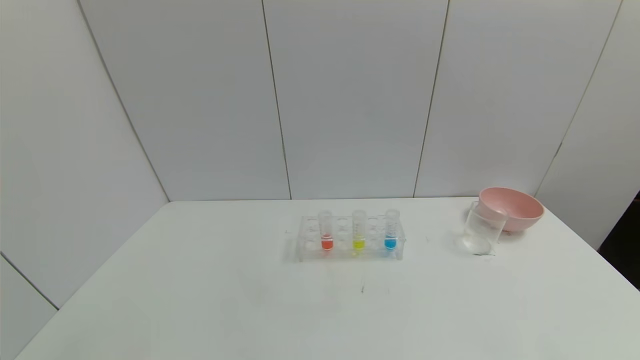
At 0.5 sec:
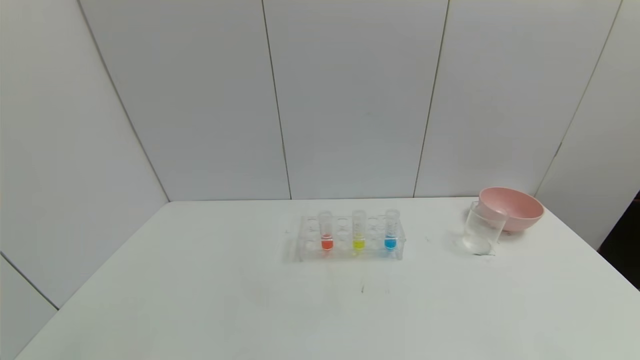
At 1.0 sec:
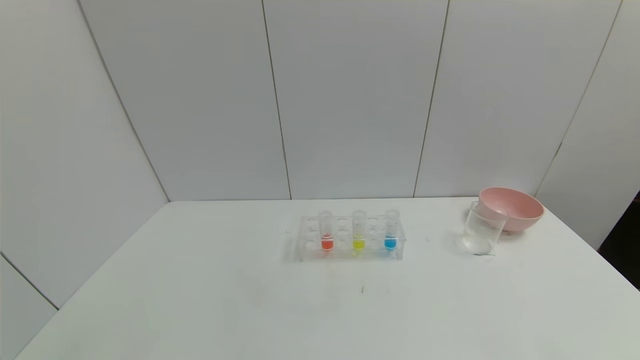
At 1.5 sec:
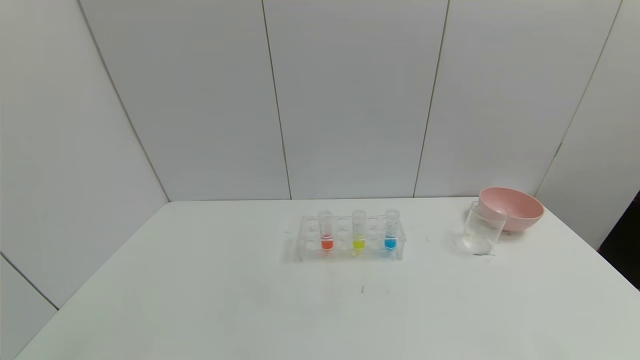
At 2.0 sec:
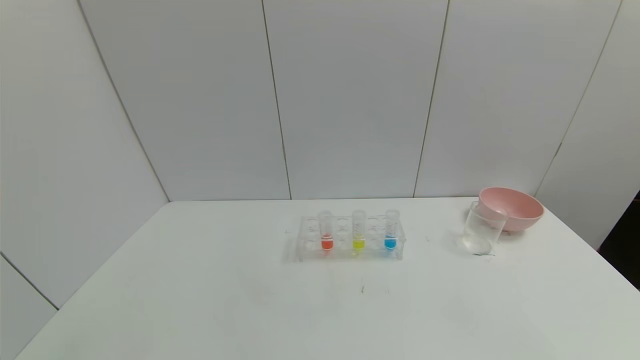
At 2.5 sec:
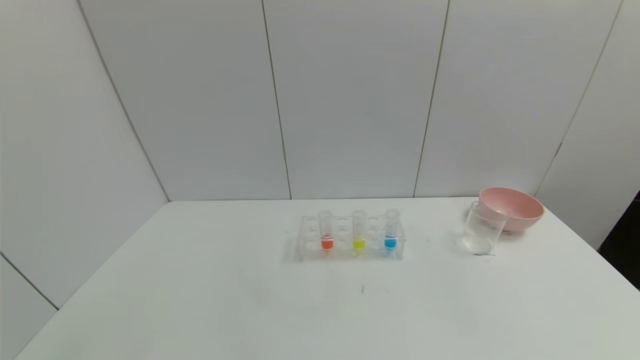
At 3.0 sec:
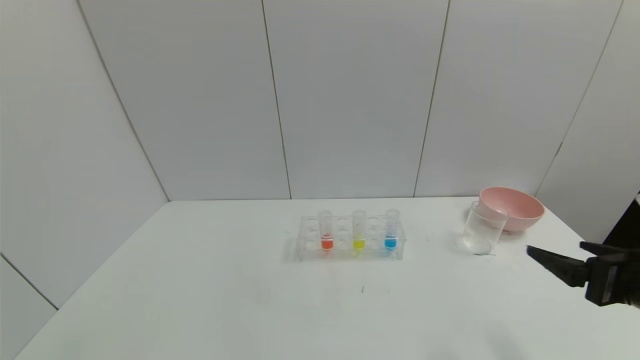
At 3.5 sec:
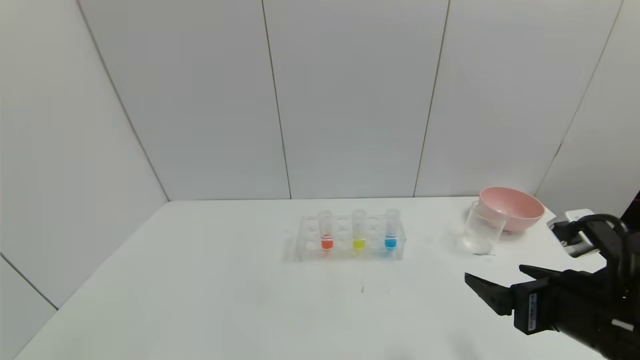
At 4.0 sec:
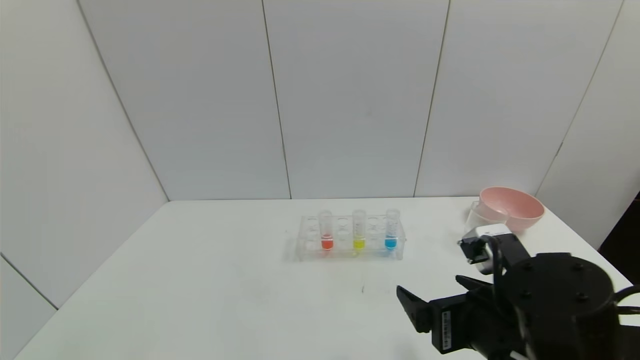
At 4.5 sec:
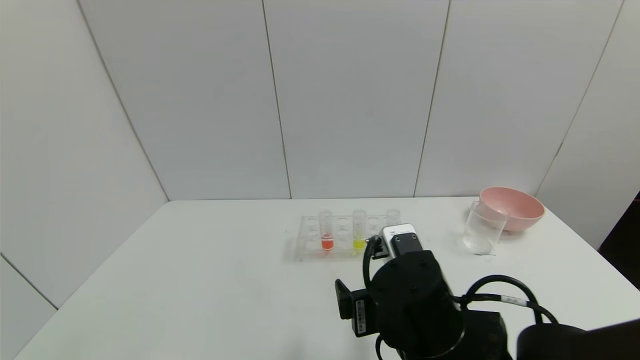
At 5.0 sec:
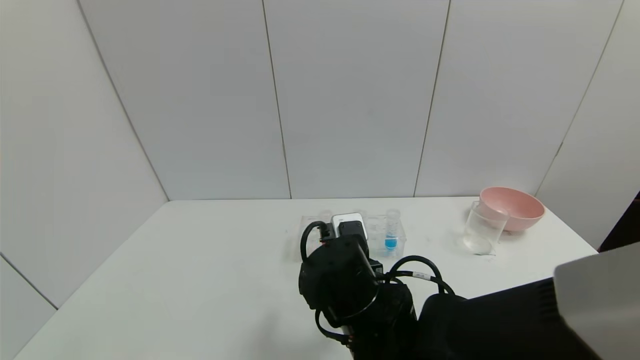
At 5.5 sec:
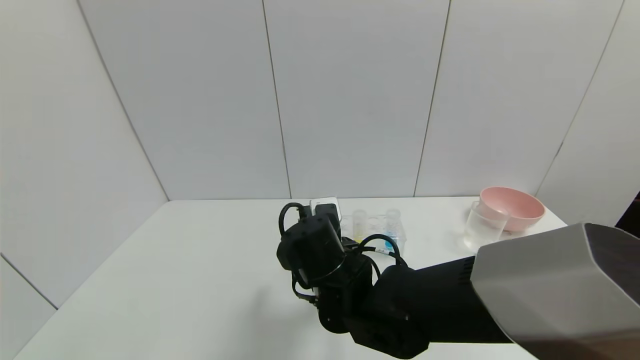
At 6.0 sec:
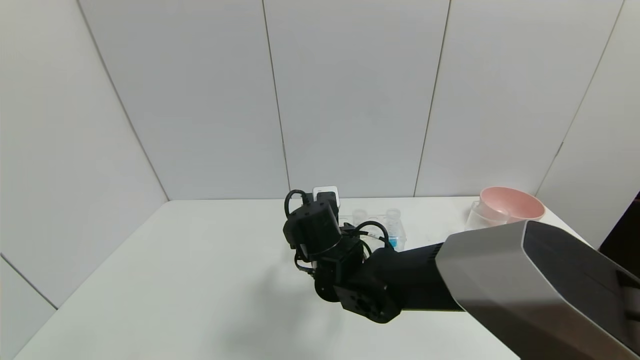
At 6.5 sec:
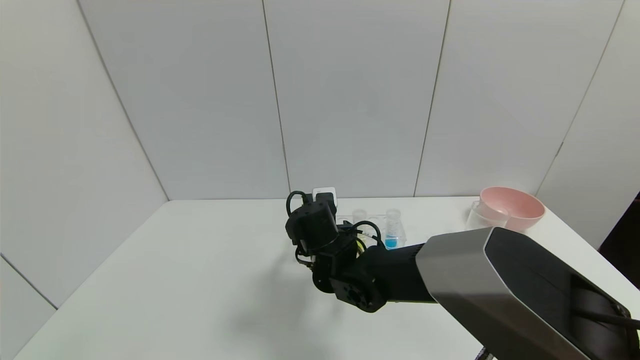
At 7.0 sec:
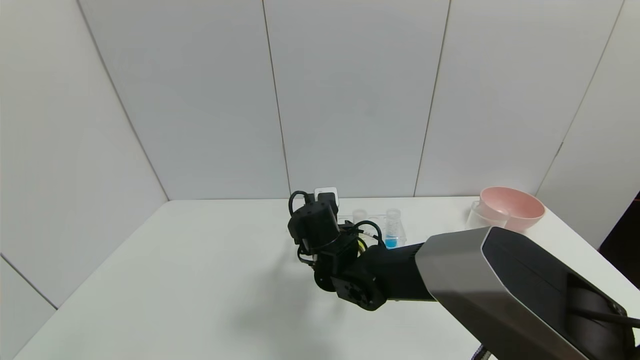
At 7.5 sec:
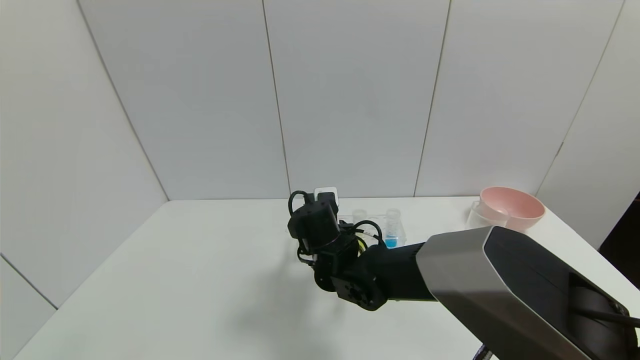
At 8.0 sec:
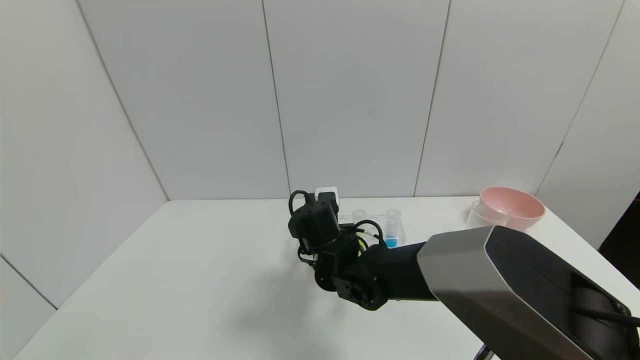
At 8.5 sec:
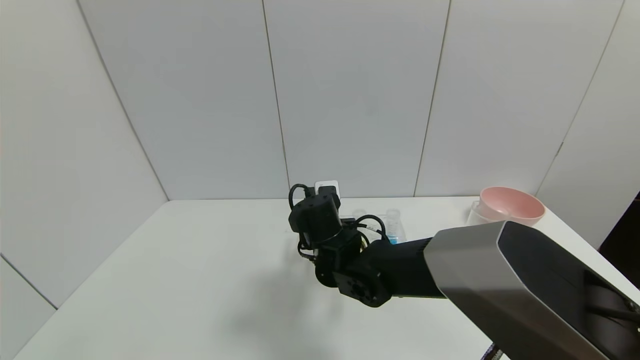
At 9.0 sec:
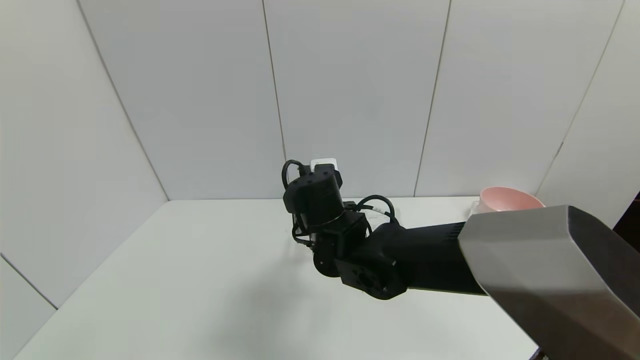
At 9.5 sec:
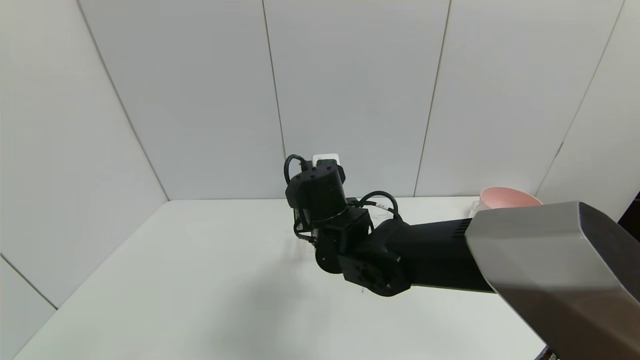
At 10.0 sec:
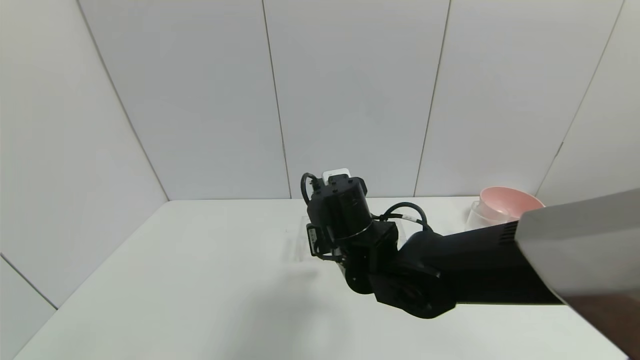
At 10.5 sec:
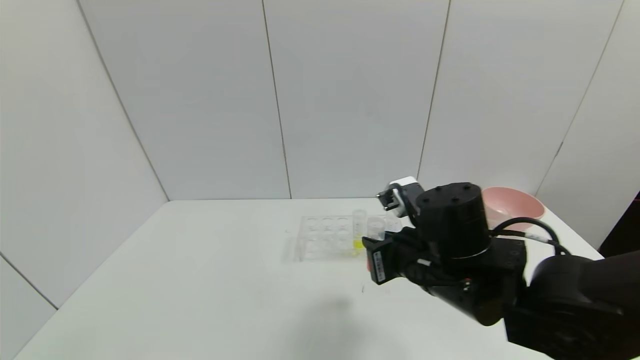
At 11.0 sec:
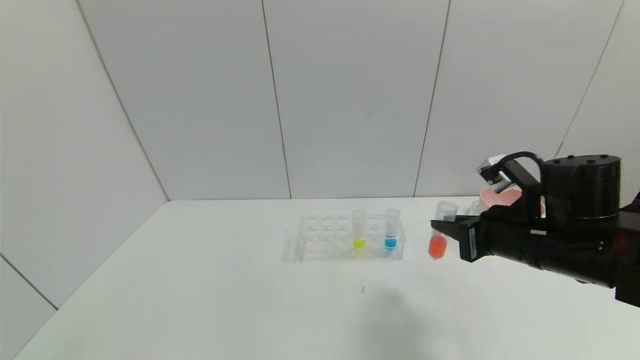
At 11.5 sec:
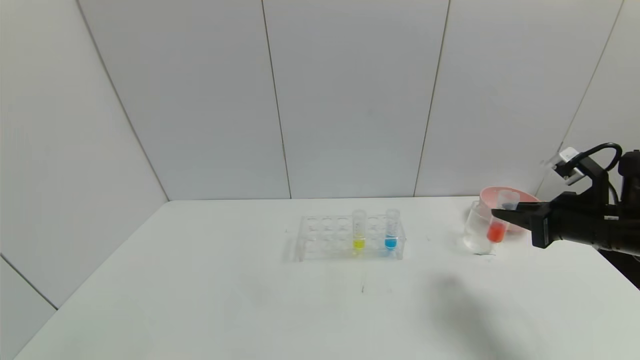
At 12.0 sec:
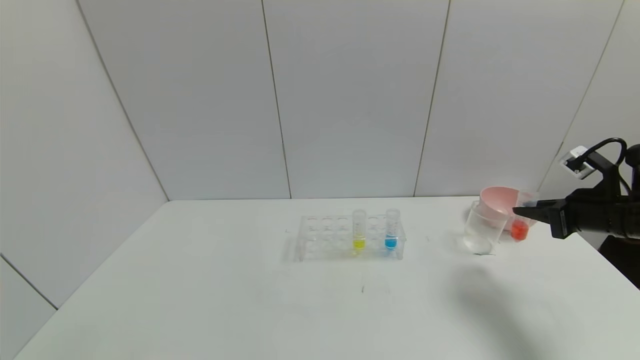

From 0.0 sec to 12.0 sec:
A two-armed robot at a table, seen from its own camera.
Task of the whole recording: pick up the test tube with yellow pigment and the test tube with red pigment by grippers and pour them into the beaker.
Step, from 0.0 sec to 11.0 sec: Pick up the test tube containing the red reagent with right gripper.
From 2.0 sec to 4.0 sec: The right gripper shifts about 25 cm to the left and forward.
From 4.0 sec to 6.0 sec: The right gripper goes some 25 cm to the left and forward.
From 6.0 sec to 8.0 sec: The right gripper closes up.
From 8.0 sec to 10.0 sec: The right gripper travels upward and backward by roughly 10 cm.
From 10.0 sec to 12.0 sec: The right gripper is displaced to the right by roughly 40 cm.

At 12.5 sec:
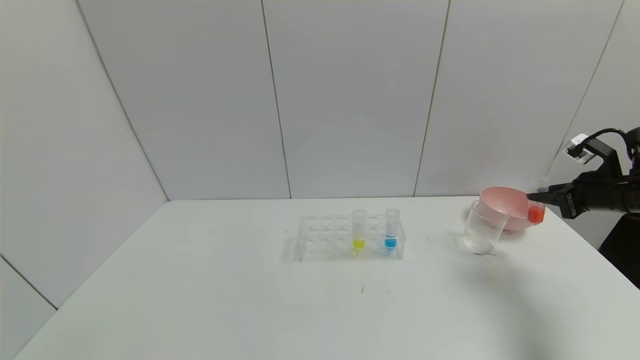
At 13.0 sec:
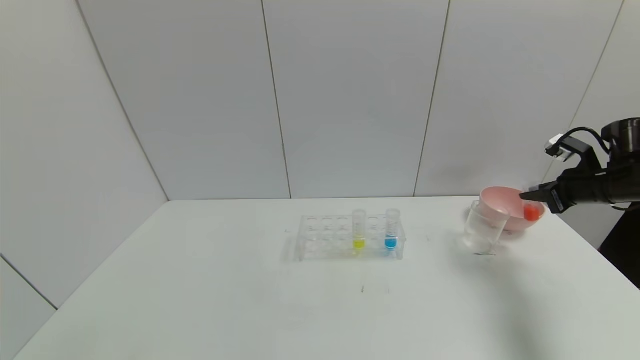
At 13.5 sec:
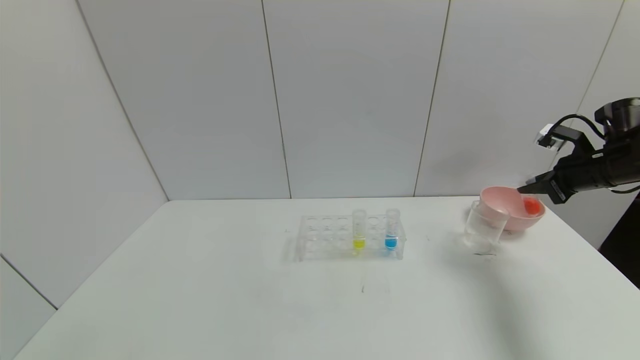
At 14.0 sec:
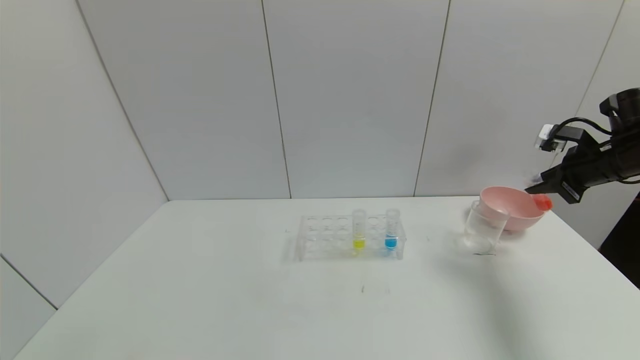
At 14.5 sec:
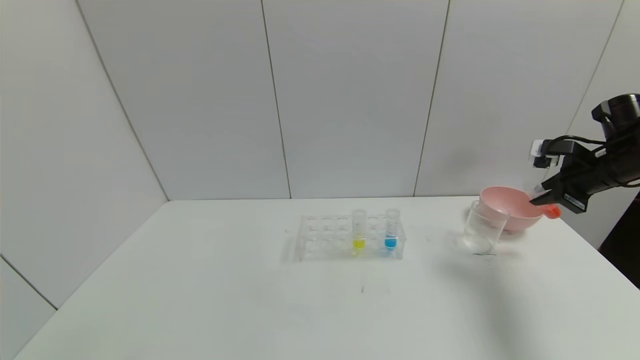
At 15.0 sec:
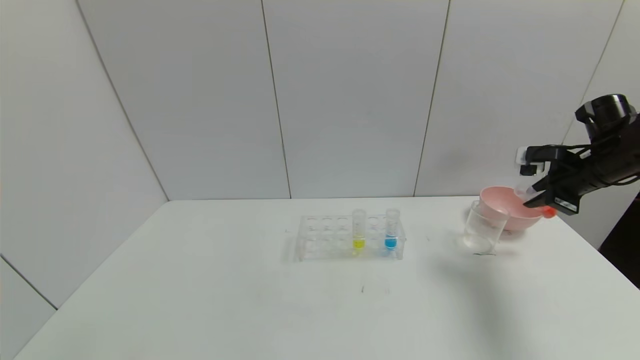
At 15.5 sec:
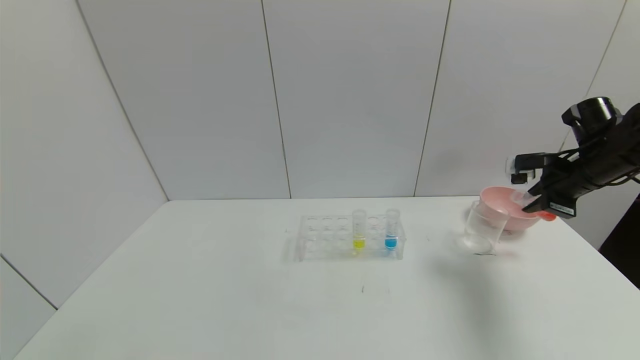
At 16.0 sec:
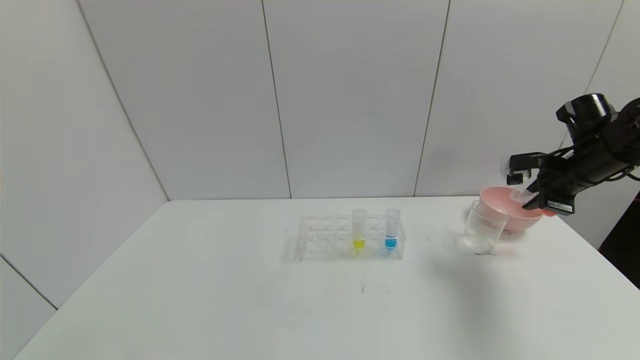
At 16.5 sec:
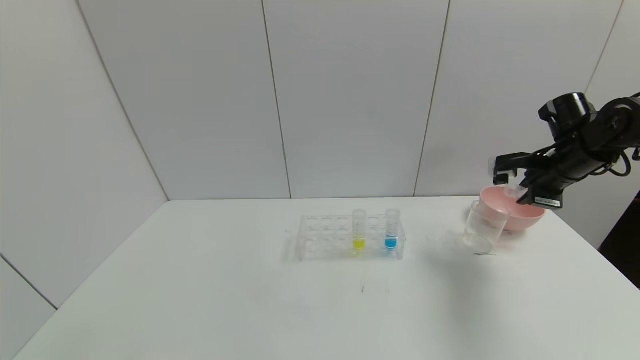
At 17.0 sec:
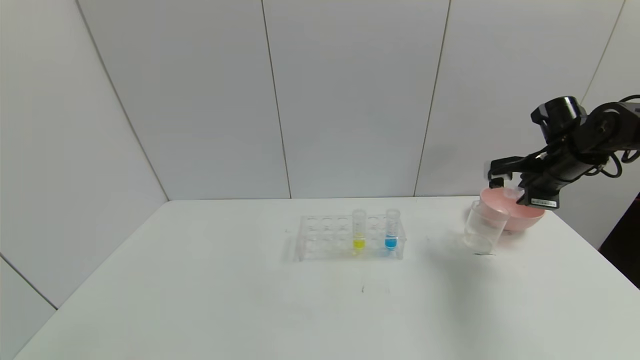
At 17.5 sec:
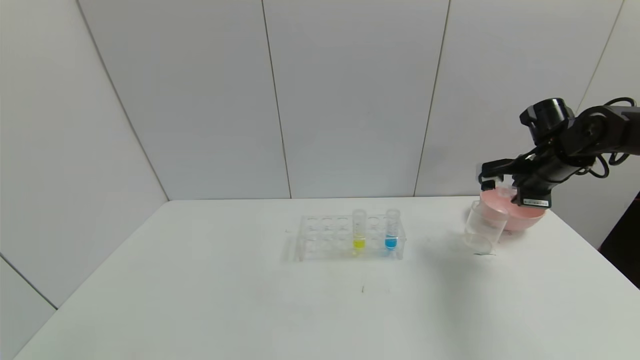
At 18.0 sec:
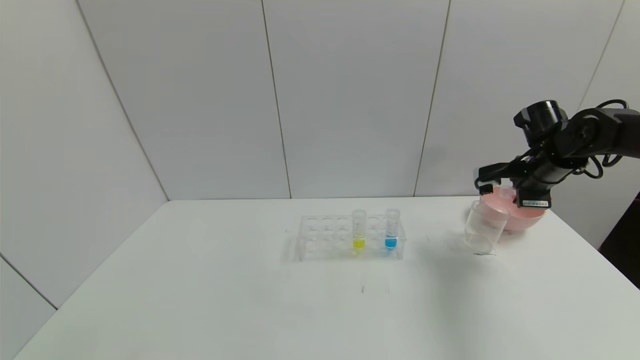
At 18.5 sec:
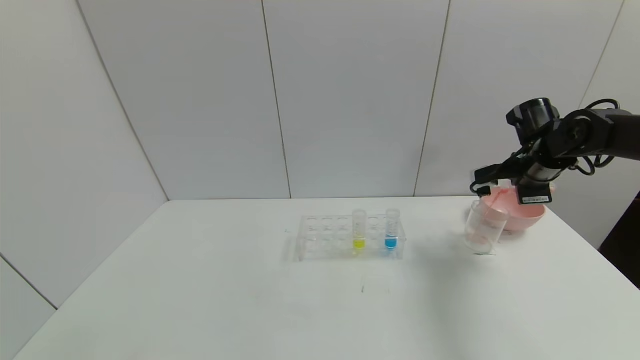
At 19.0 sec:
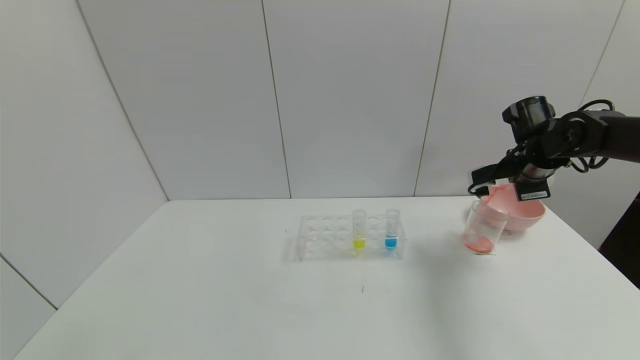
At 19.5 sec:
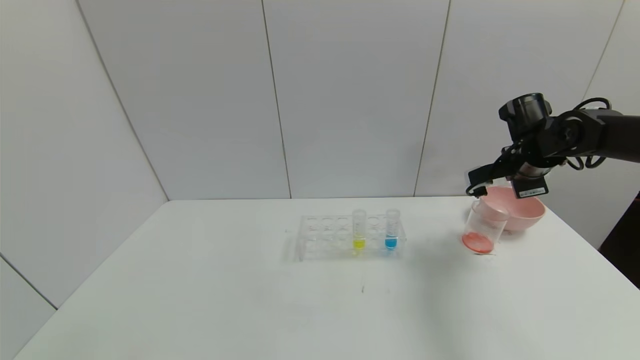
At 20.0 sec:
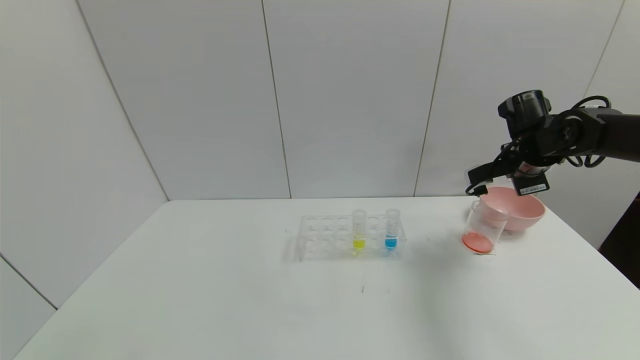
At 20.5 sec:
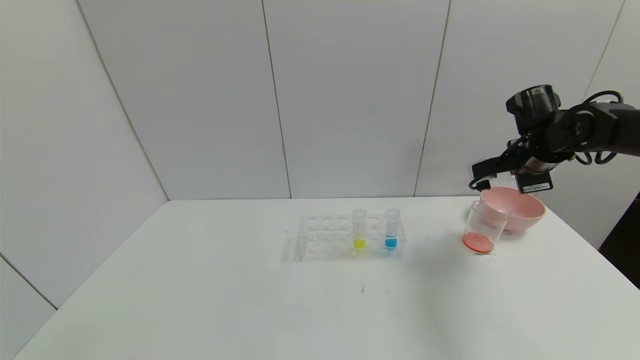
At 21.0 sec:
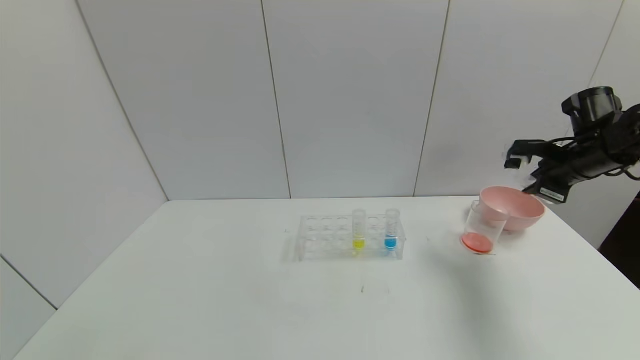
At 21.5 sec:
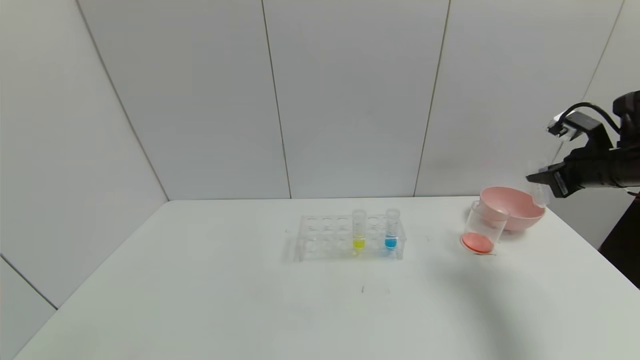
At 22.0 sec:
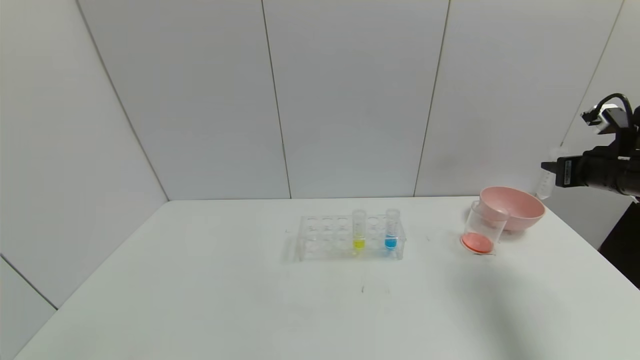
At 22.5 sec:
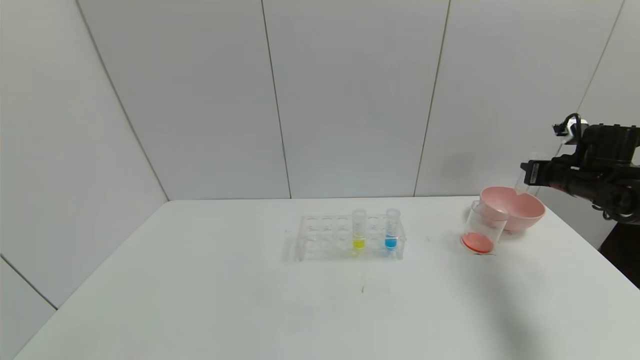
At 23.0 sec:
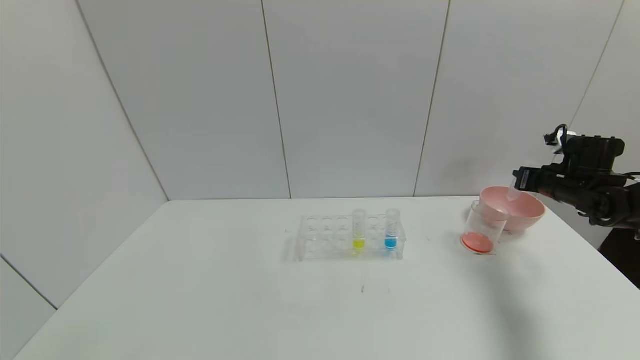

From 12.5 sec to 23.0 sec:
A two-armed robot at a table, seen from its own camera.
Task of the whole recording: pick up the test tube with yellow pigment and the test tube with red pigment by grippers and pour them into the beaker.
Step, from 12.5 sec to 22.0 sec: Pour the red reagent into the graduated cylinder with right gripper.
From 12.5 sec to 14.5 sec: The right gripper moves about 5 cm.
From 14.5 sec to 16.5 sec: The right gripper travels to the left by about 5 cm.
From 19.0 sec to 21.0 sec: The right gripper moves to the right, about 5 cm.
From 21.0 sec to 23.0 sec: The right gripper heads downward, covering roughly 5 cm.
